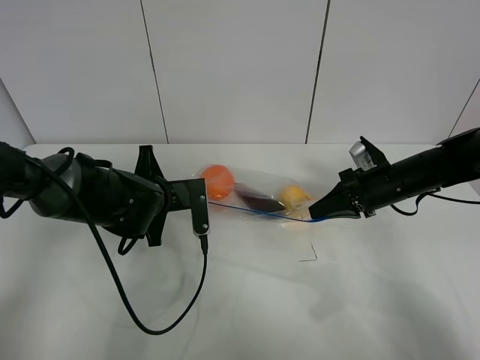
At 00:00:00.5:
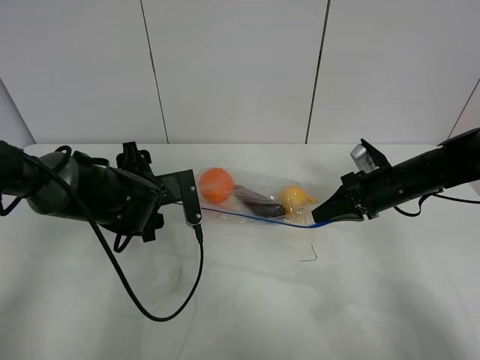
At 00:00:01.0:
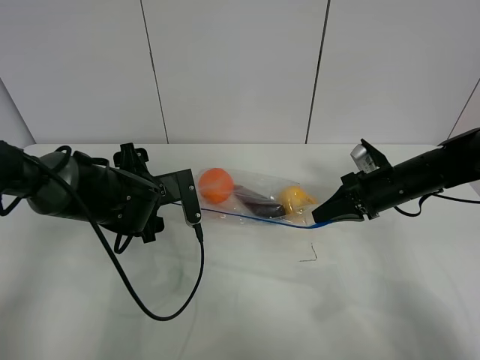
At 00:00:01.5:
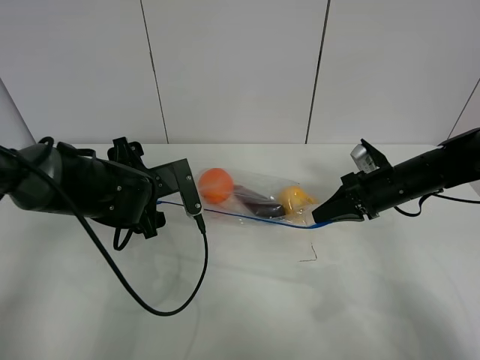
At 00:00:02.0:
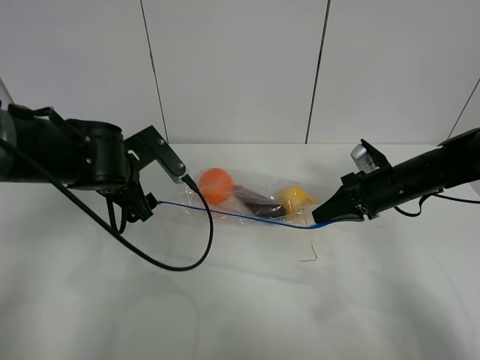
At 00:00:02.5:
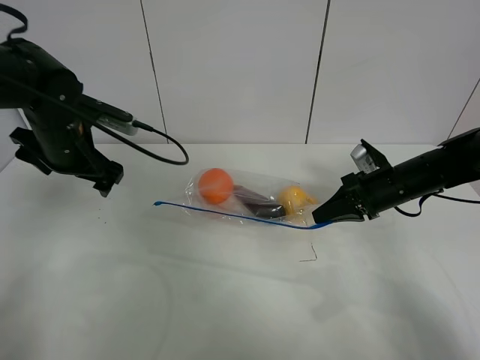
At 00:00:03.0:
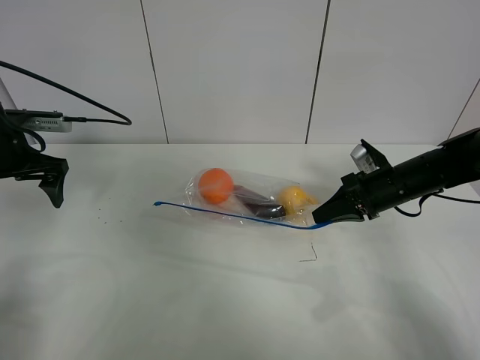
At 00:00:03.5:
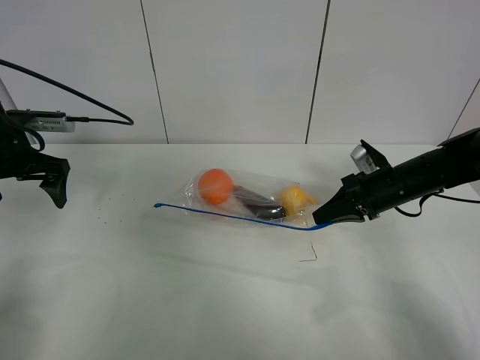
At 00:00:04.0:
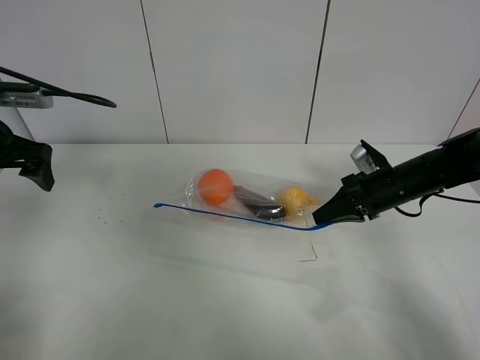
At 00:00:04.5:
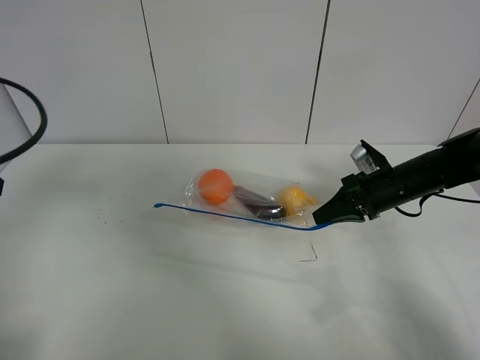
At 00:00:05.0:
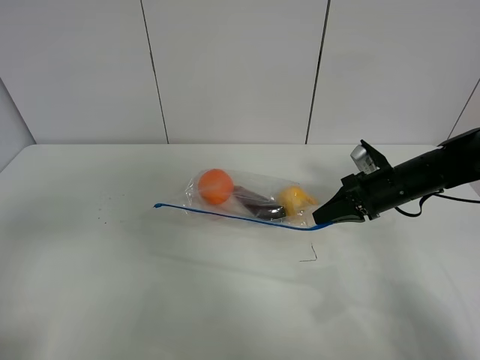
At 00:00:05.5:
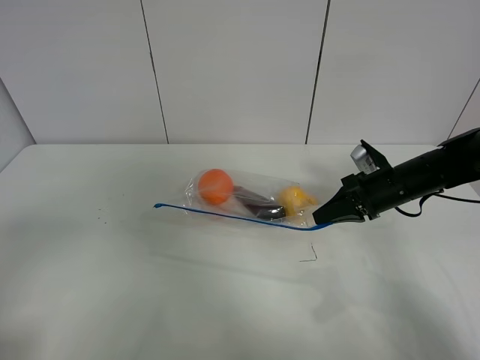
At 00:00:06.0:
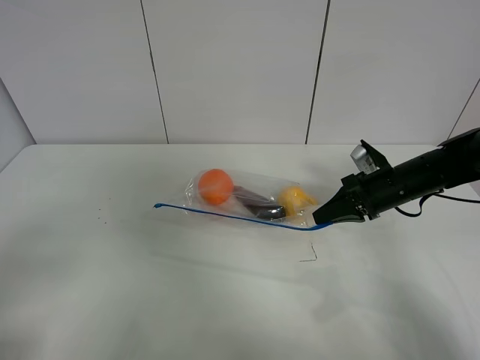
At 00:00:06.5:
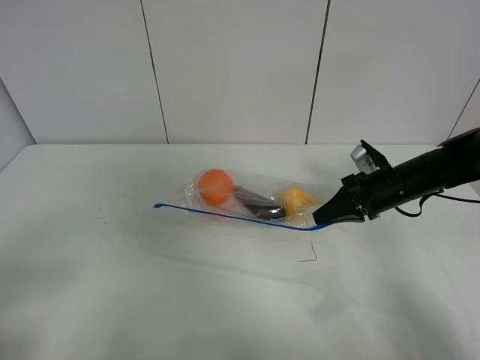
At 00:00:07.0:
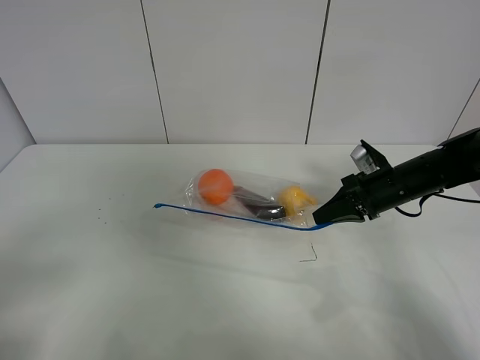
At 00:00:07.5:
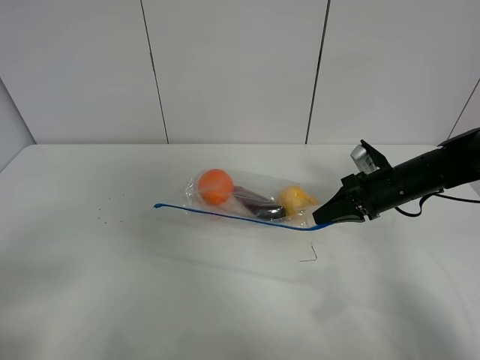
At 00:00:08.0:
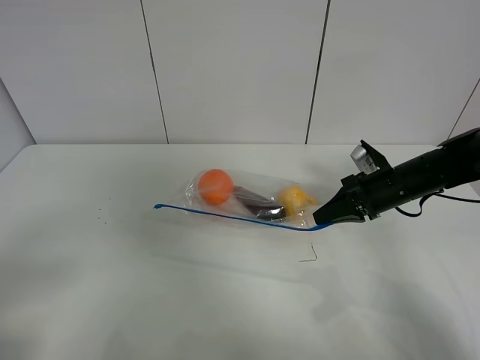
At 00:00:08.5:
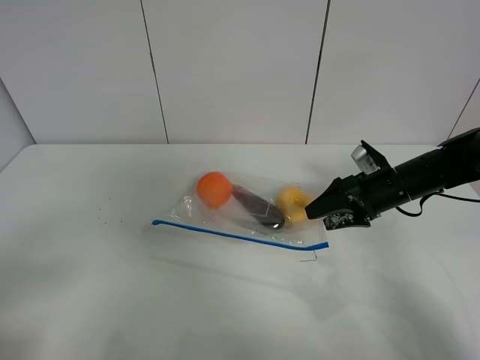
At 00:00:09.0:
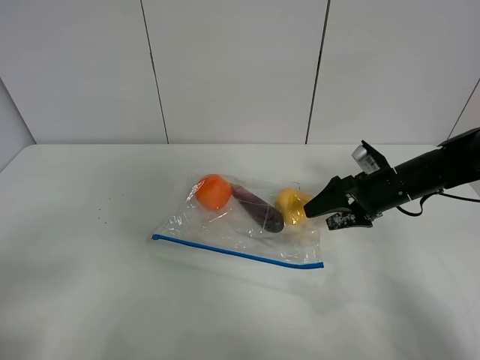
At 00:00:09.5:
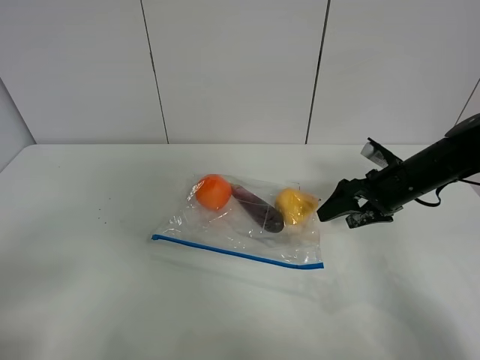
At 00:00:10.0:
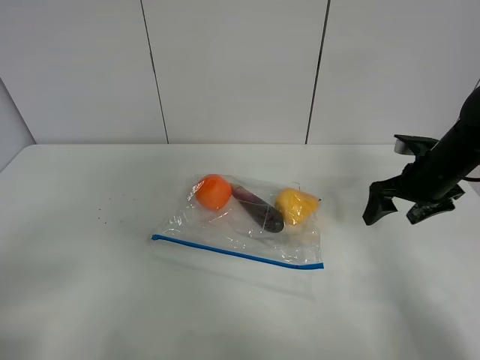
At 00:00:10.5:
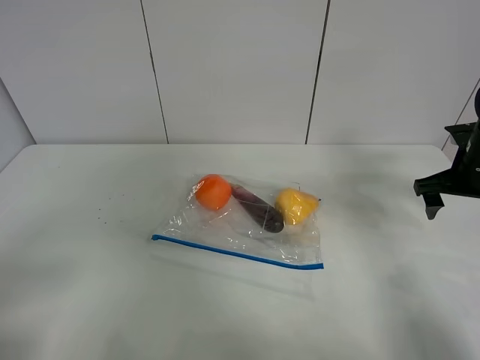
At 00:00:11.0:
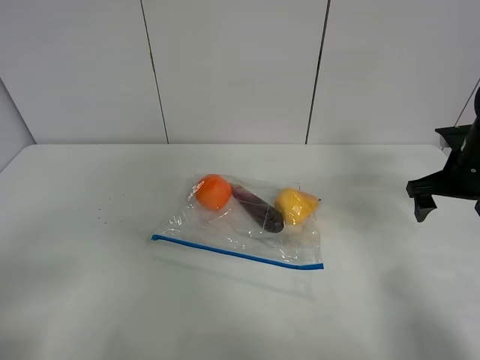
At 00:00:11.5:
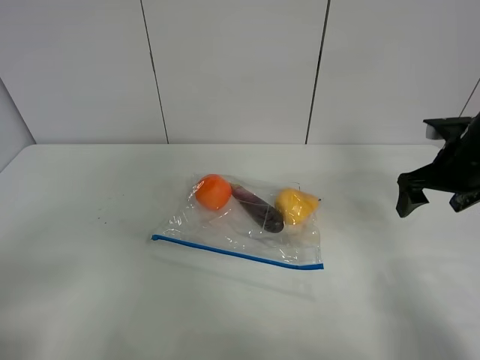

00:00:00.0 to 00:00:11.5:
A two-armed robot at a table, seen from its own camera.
00:00:00.0 to 00:00:02.0: The left gripper goes about 5 cm upward, and opens its fingers.
00:00:02.0 to 00:00:04.0: The left gripper shifts roughly 20 cm to the left and upward.
00:00:04.0 to 00:00:06.0: The left gripper travels backward by approximately 30 cm.
00:00:07.5 to 00:00:09.5: The right gripper opens up.
00:00:09.5 to 00:00:11.5: The right gripper goes some 10 cm upward and to the right.

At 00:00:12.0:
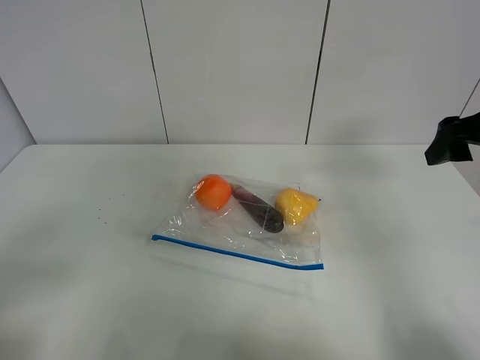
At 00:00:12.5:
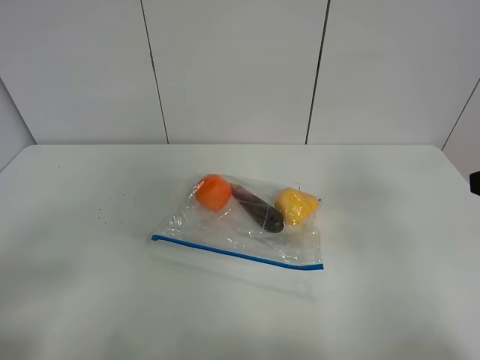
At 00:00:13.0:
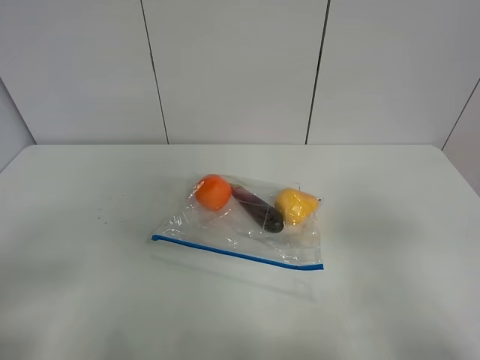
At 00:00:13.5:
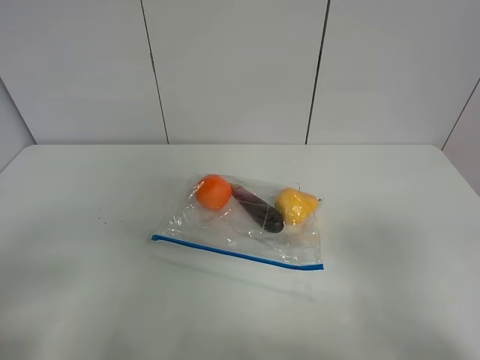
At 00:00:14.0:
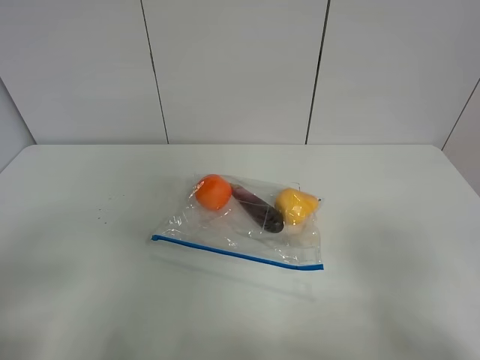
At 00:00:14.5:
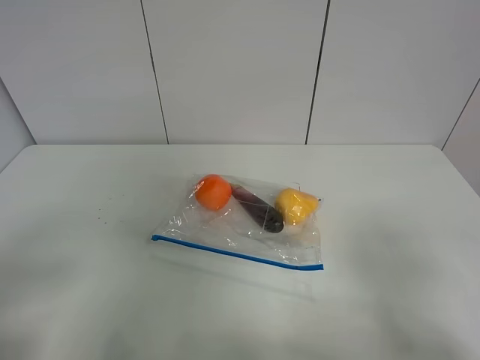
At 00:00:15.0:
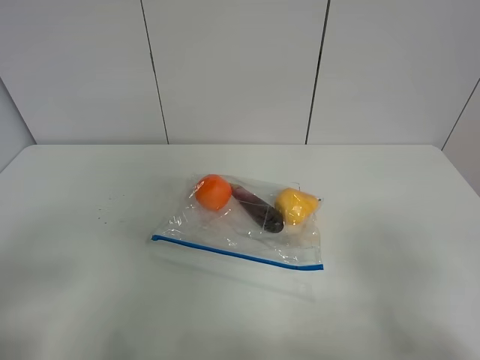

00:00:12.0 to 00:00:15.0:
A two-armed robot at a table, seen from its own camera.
00:00:12.0 to 00:00:13.5: The right gripper travels backward by about 25 cm.

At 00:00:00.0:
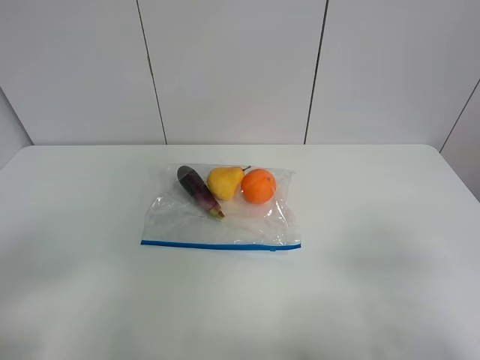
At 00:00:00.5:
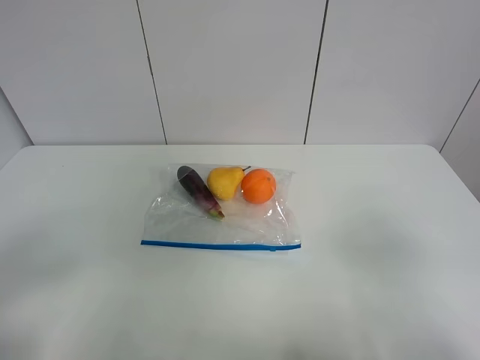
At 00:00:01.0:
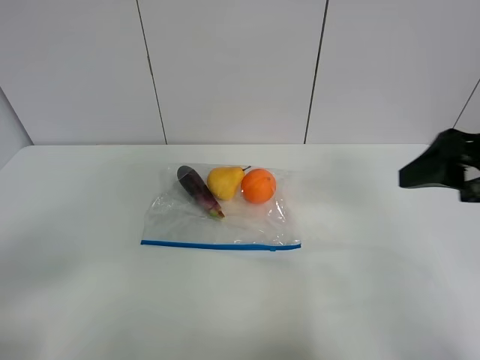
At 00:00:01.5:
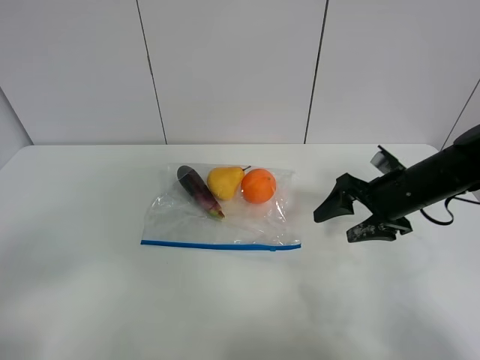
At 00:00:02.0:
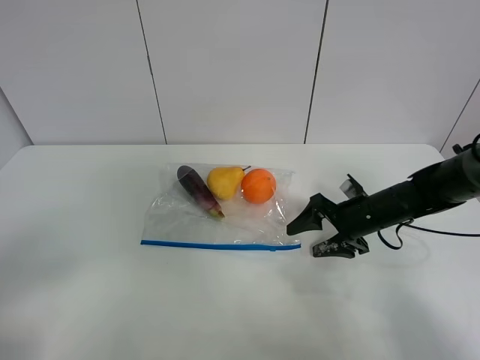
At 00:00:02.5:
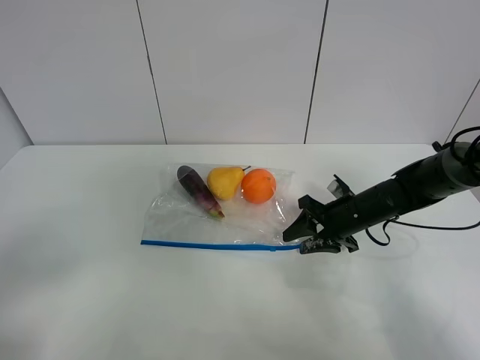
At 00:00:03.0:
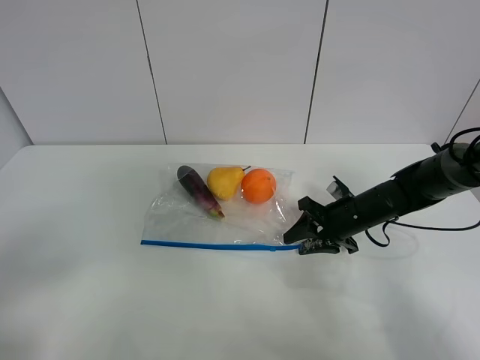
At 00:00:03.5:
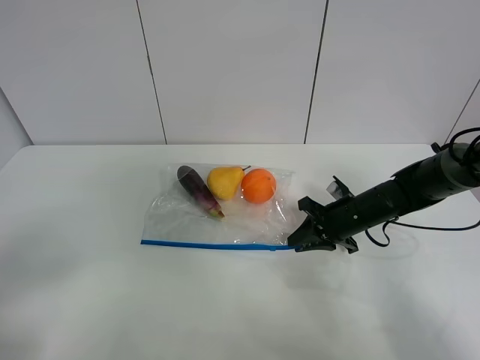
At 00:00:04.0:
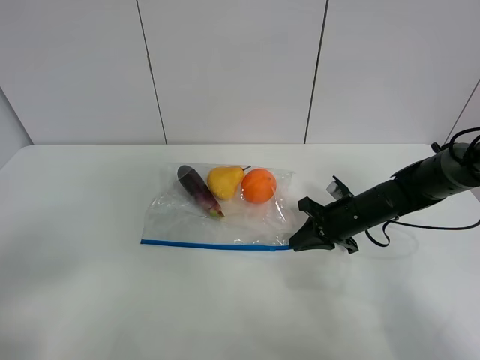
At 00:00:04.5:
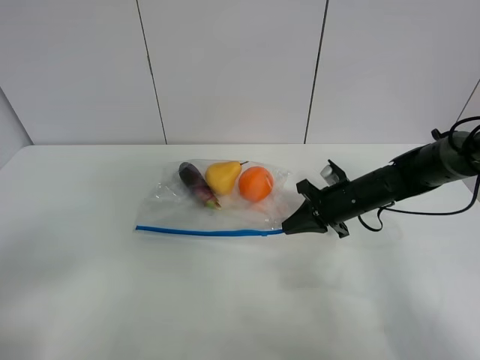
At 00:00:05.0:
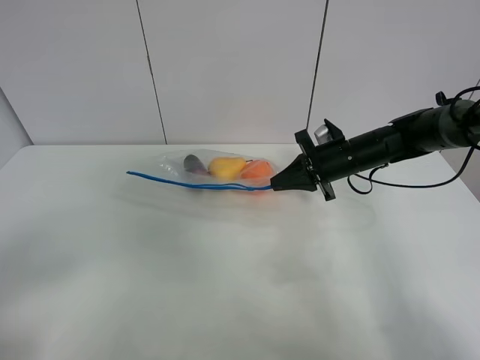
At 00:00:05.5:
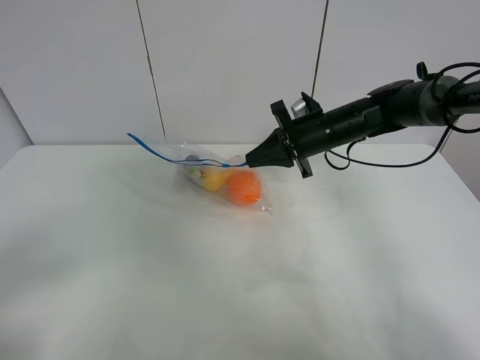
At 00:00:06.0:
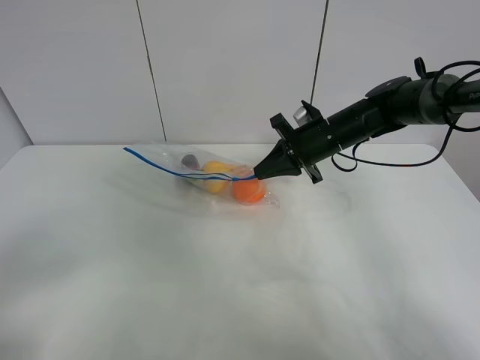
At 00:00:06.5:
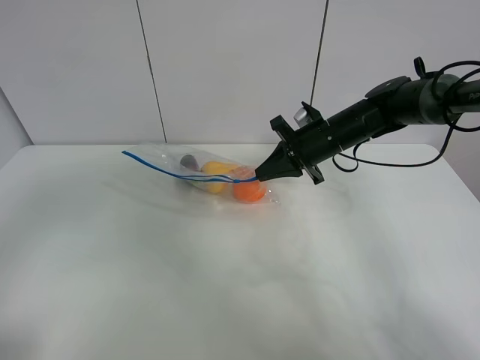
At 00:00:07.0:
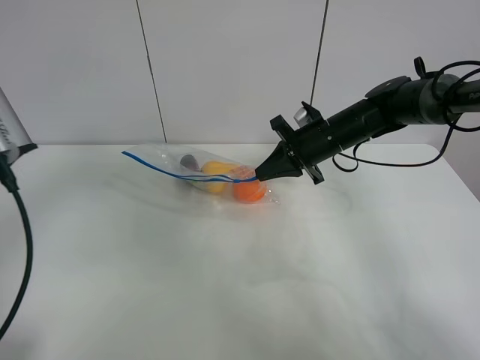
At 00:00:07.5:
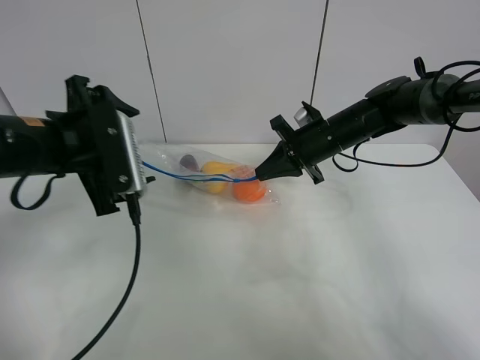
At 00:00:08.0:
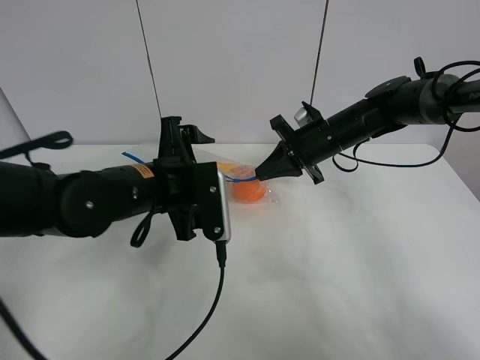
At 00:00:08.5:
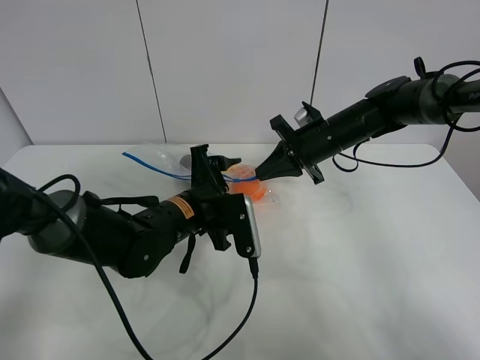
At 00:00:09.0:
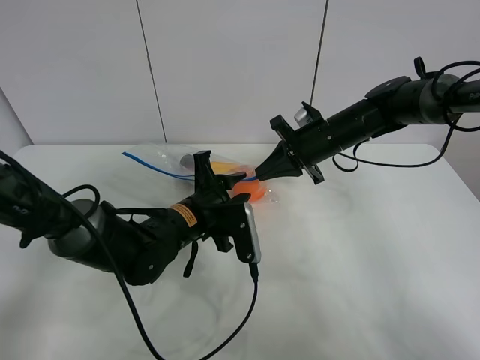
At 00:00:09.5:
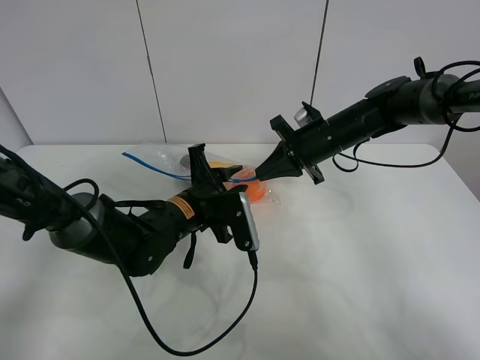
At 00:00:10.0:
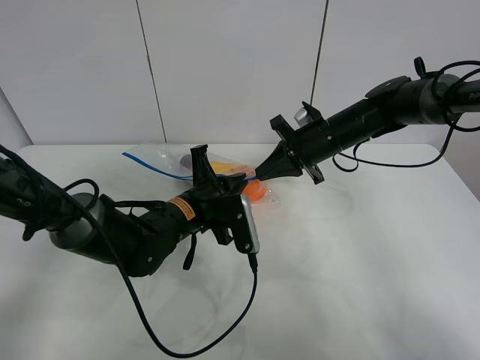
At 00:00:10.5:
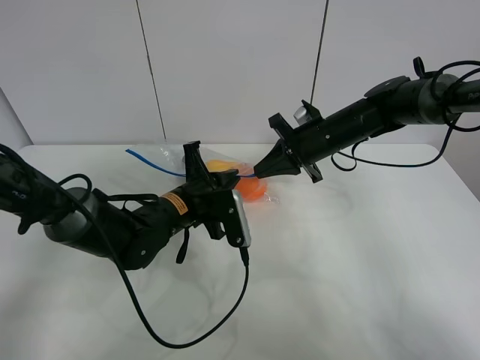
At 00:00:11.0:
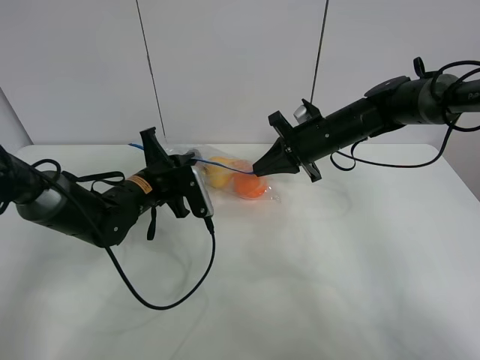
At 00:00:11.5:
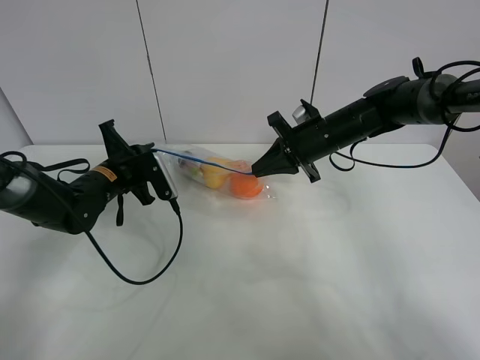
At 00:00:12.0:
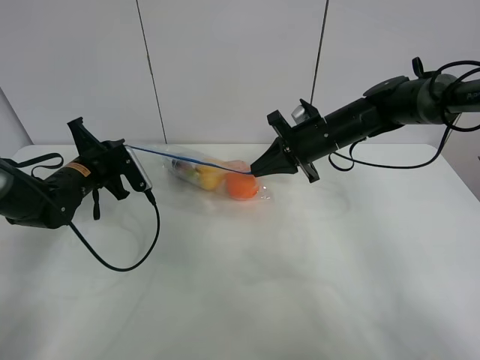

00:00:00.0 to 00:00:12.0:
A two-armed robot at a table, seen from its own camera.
Step, 00:00:00.0 to 00:00:04.0: Grasp the fruit bag with right gripper.
Step, 00:00:04.5 to 00:00:05.5: Lift the fruit bag with your right gripper.
00:00:00.0 to 00:00:02.0: The right gripper heads forward and downward, covering roughly 40 cm.
00:00:02.0 to 00:00:04.0: The right gripper closes.
00:00:04.0 to 00:00:06.0: The right gripper is displaced upward, forward and to the left by approximately 15 cm.
00:00:06.0 to 00:00:08.0: The left gripper goes some 35 cm forward and to the right.
00:00:08.0 to 00:00:10.0: The left gripper moves downward, approximately 5 cm, and closes up.
00:00:10.0 to 00:00:12.0: The left gripper travels to the left by roughly 20 cm.
